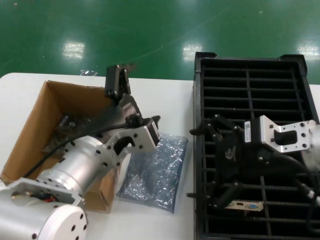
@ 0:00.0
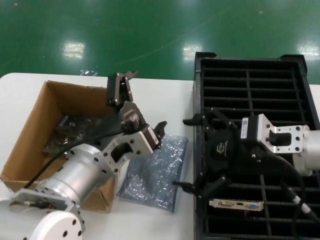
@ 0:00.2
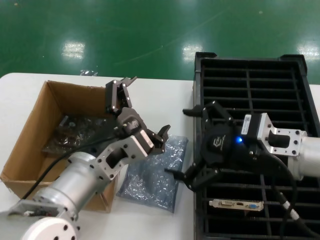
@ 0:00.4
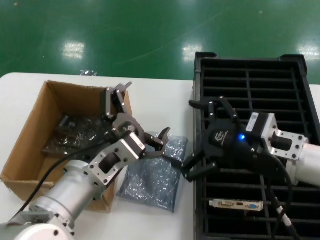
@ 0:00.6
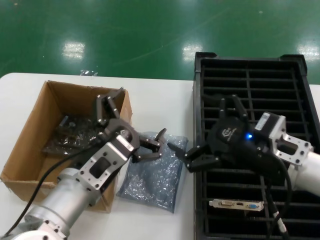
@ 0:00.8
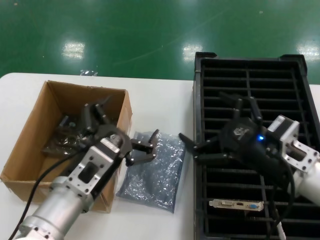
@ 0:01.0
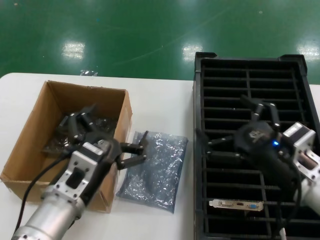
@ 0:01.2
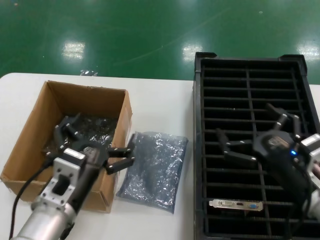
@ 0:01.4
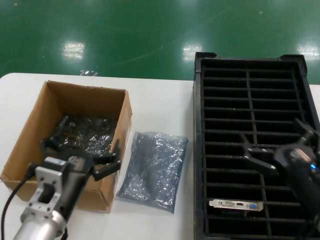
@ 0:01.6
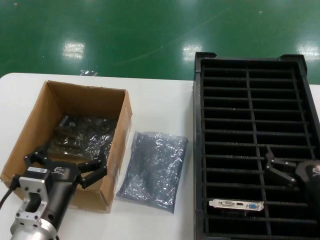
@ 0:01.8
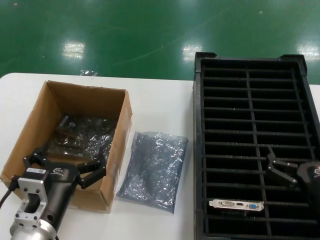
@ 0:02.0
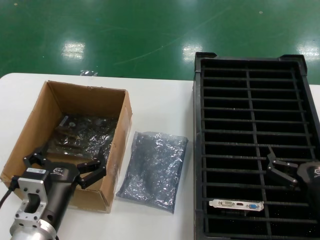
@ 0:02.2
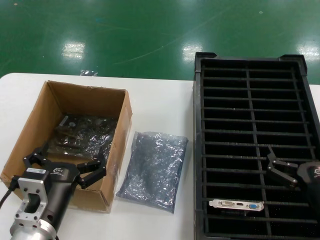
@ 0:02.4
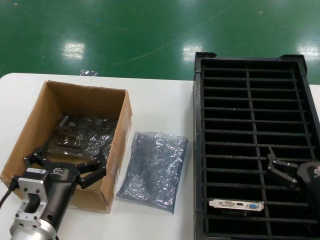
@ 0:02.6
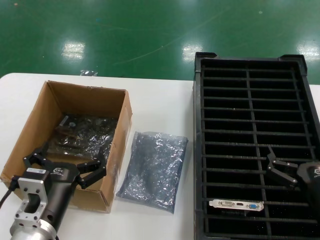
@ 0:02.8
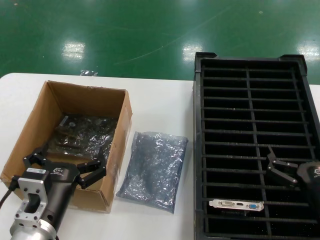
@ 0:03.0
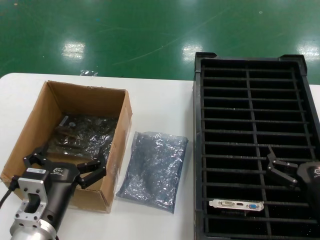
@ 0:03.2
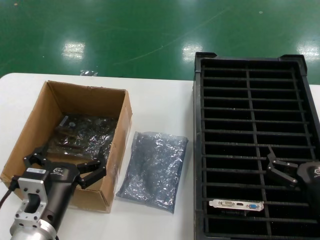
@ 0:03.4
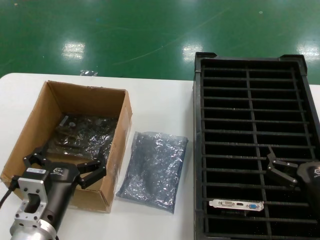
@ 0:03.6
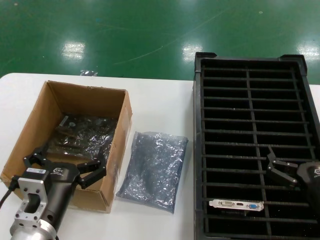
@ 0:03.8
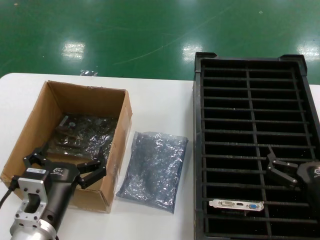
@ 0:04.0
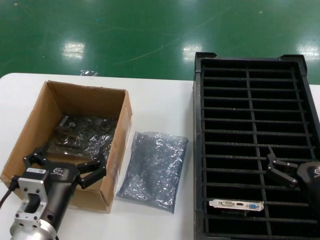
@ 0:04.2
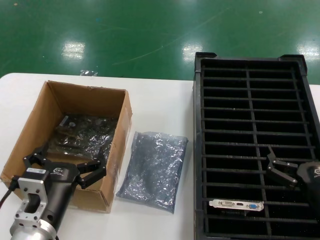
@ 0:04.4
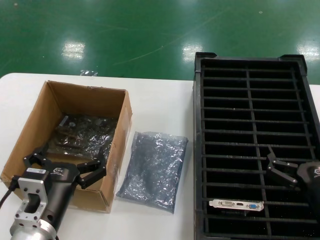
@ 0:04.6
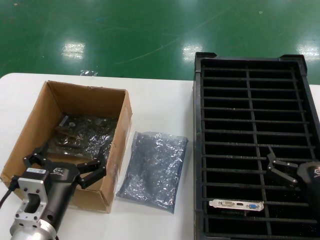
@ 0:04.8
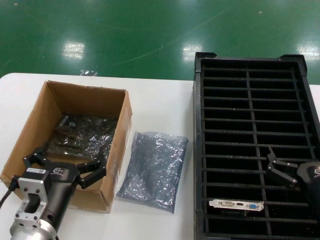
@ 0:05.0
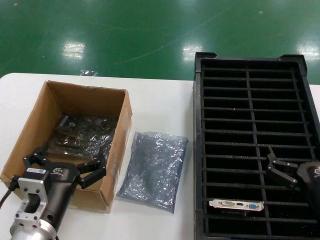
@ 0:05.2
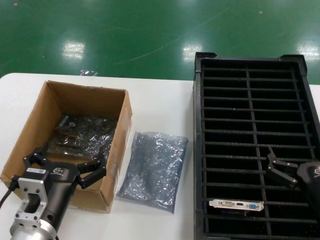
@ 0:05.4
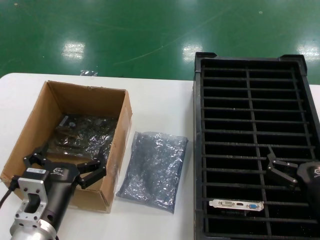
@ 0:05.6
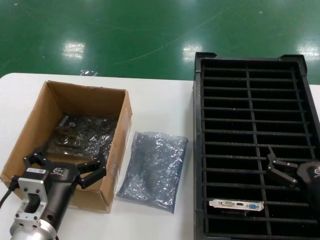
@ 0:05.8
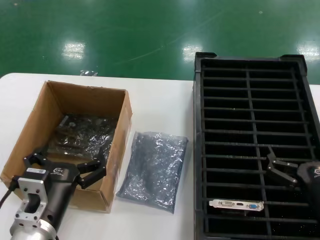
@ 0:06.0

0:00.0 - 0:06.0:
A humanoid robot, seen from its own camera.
Task of the whole recording: take out graphics card from box remove packaging put into black container.
0:00.0 - 0:01.6: The left hand moves downward and to the left, some 15 cm, while the right hand heads downward, covering approximately 20 cm.
0:01.6 - 0:03.0: The hands move only a little.
0:03.0 - 0:06.0: Both hands stay put.
